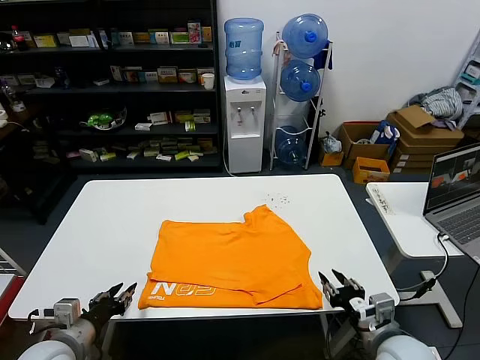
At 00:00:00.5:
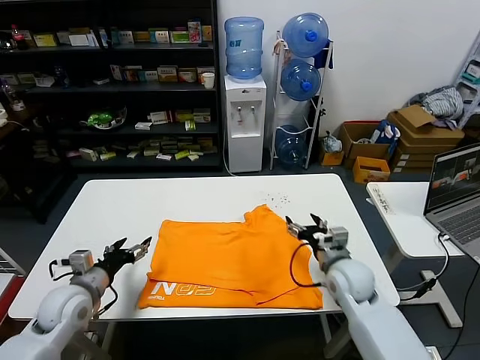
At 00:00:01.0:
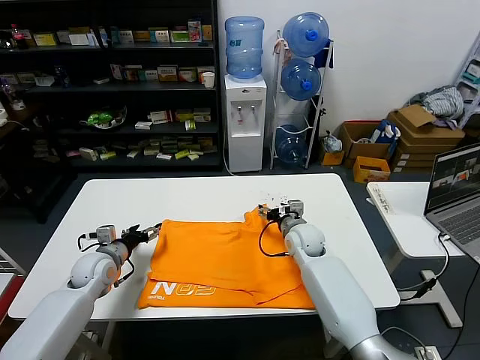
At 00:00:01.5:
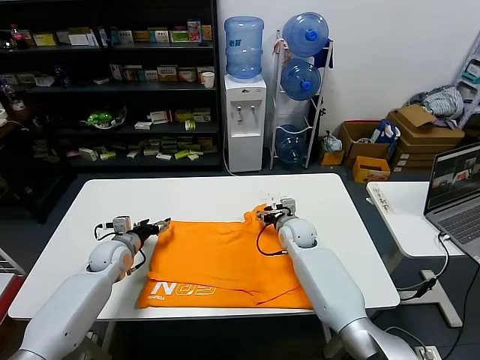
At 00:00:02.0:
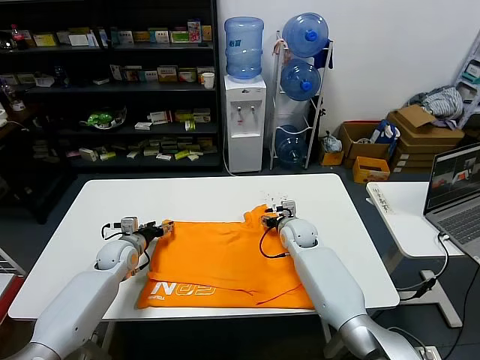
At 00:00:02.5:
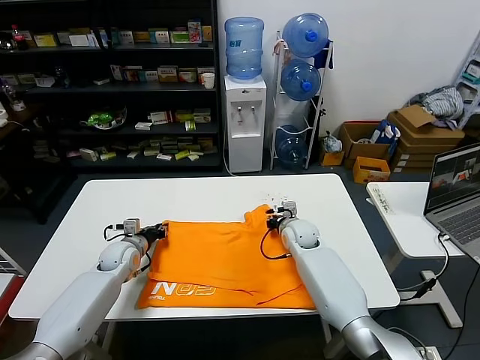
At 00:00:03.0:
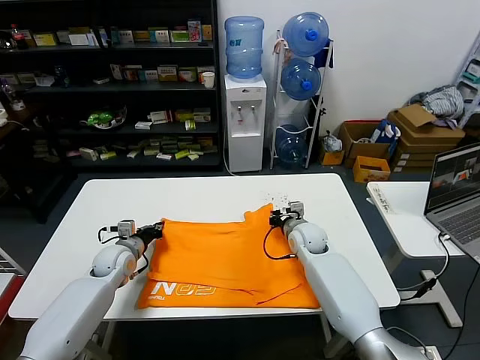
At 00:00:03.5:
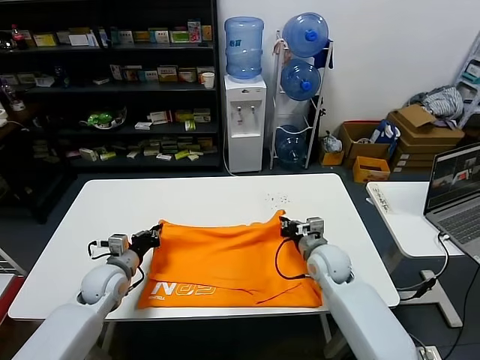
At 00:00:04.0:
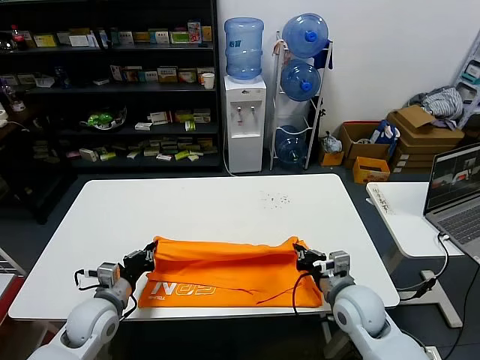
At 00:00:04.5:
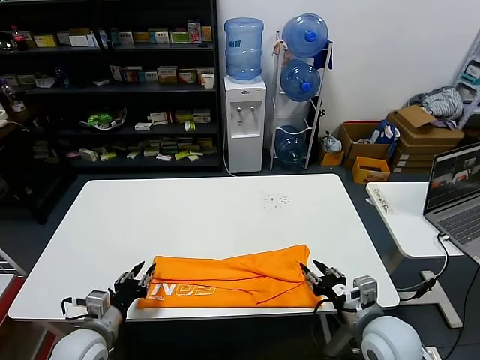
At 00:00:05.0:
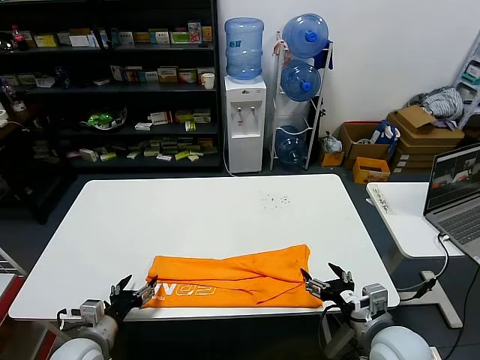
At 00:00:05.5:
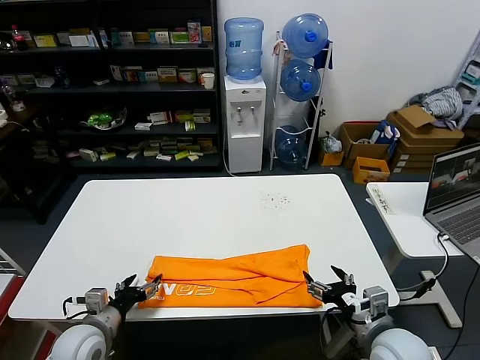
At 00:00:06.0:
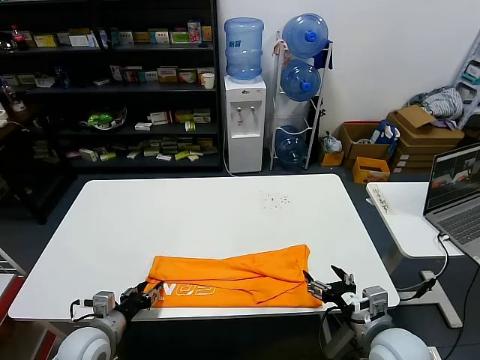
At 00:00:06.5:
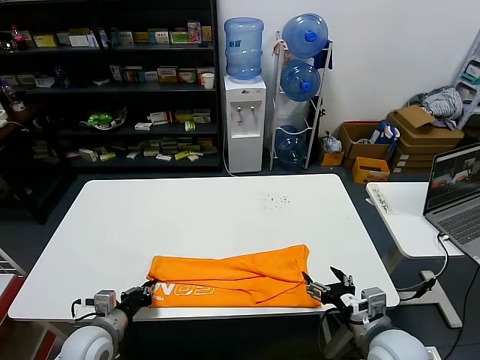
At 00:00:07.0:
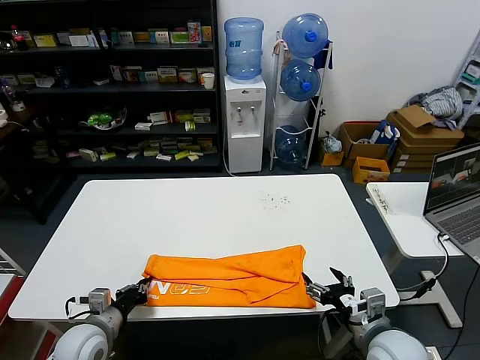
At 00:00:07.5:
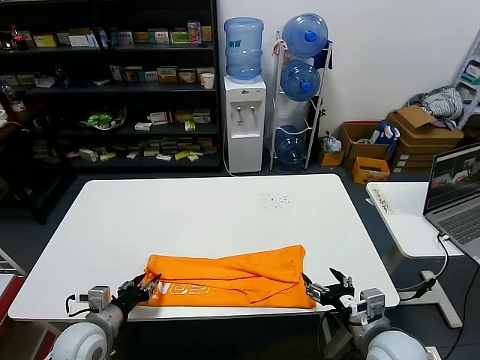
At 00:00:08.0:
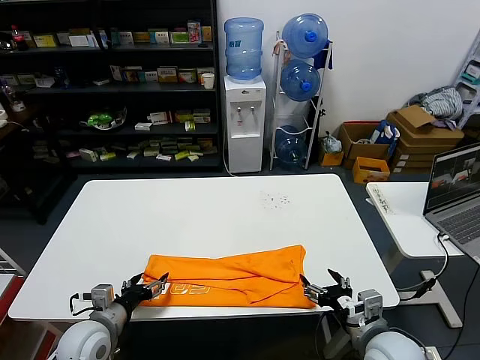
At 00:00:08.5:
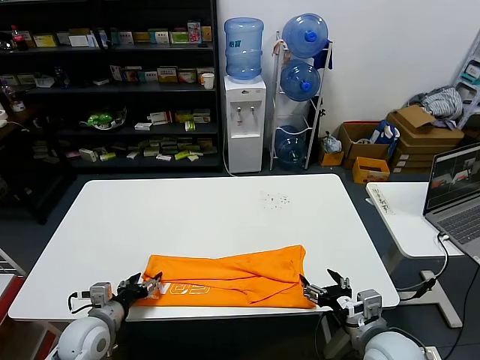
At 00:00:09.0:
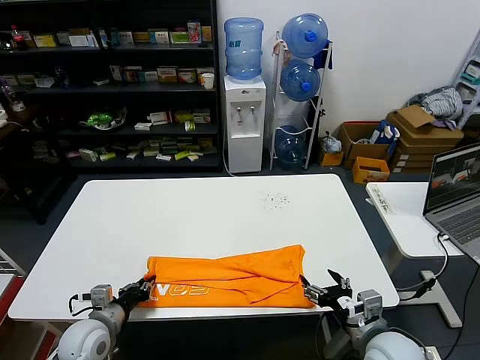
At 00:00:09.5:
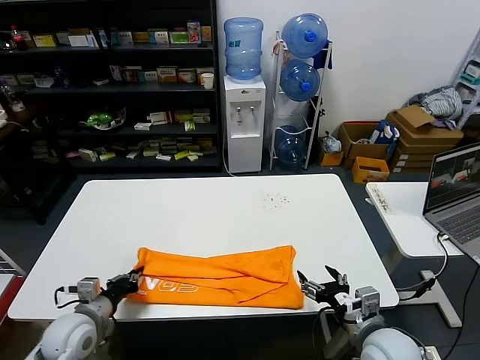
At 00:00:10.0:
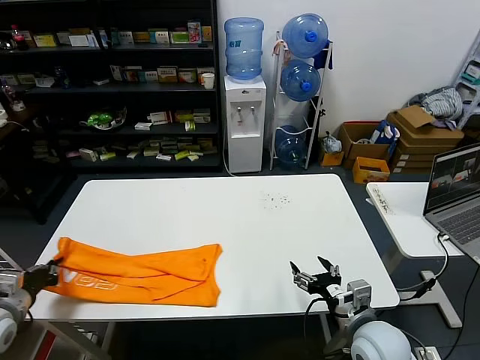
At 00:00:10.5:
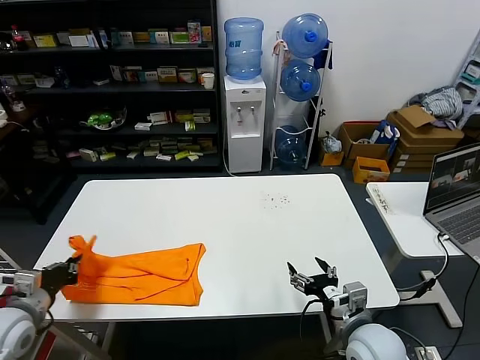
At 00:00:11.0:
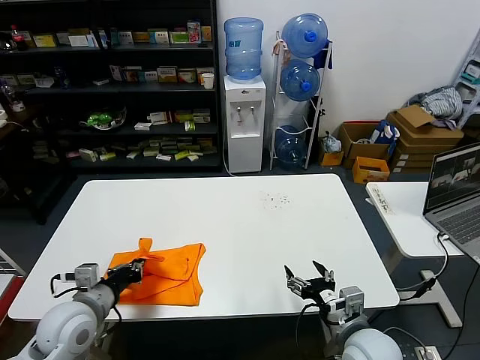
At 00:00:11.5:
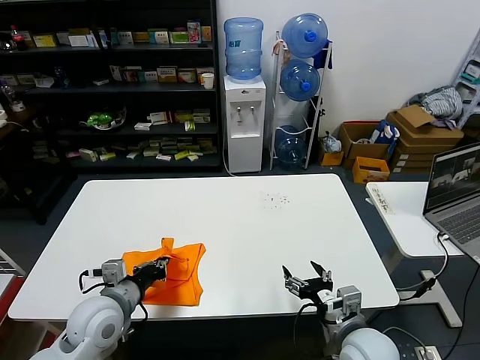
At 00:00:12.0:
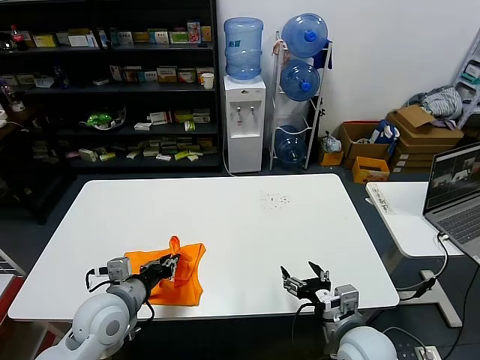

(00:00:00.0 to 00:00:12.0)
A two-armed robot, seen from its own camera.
Task of the whole recording: fold and organize the clothes.
Step, 00:00:00.0 - 00:00:02.5: use both grippers simultaneously to clamp the upper edge of the clothing fabric.
Step, 00:00:03.0 - 00:00:04.0: use both grippers to drag the upper edge of the fabric backward and fold it over the lower edge.
Step, 00:00:04.5 - 00:00:09.0: use the left gripper to clamp the left edge of the fabric.
00:00:00.0 - 00:00:02.0: The left gripper is displaced forward by some 25 cm, and opens up; the right gripper shifts some 35 cm forward and to the left.
00:00:02.0 - 00:00:04.0: Both grippers move backward, some 20 cm. The left gripper closes its fingers, while the right gripper closes.
00:00:04.0 - 00:00:06.0: The grippers both shift backward by about 5 cm. The left gripper opens up, while the right gripper opens up.
00:00:06.0 - 00:00:08.0: The left gripper opens.
00:00:08.0 - 00:00:10.0: The left gripper moves to the left, some 15 cm, and closes its fingers.
00:00:10.0 - 00:00:12.0: The left gripper heads to the right, covering roughly 20 cm.

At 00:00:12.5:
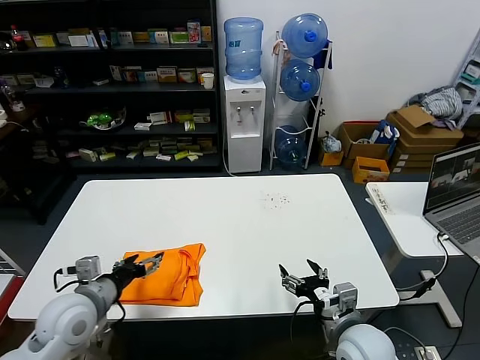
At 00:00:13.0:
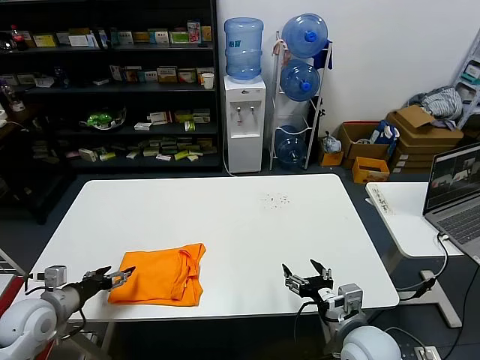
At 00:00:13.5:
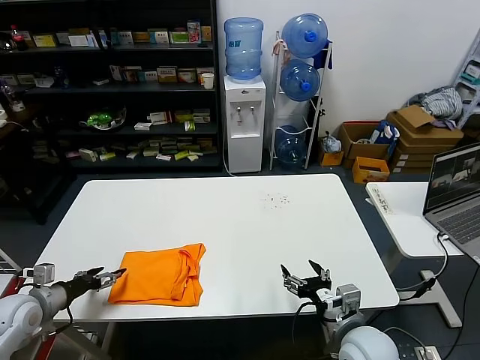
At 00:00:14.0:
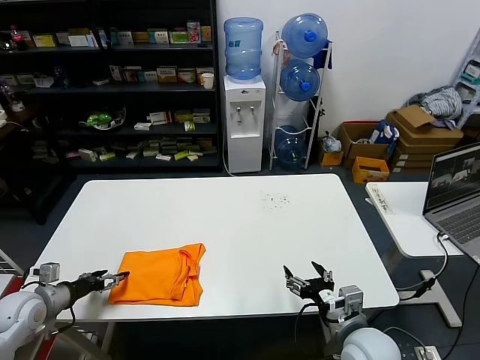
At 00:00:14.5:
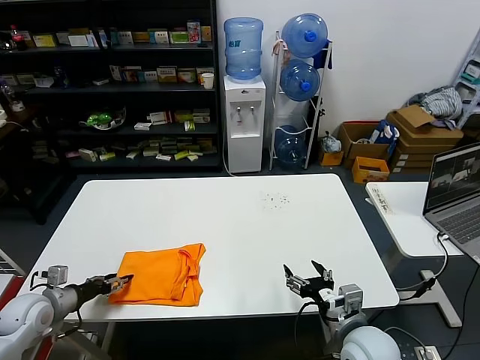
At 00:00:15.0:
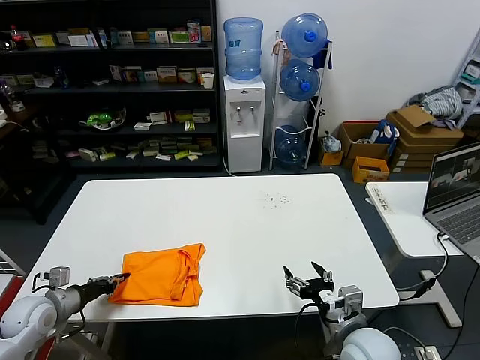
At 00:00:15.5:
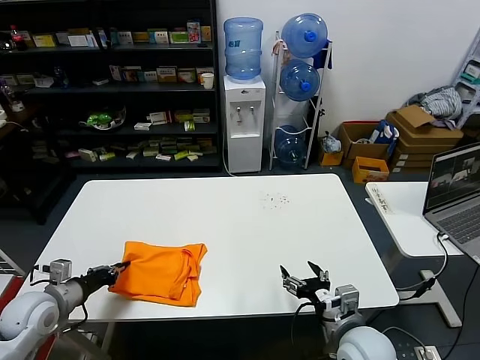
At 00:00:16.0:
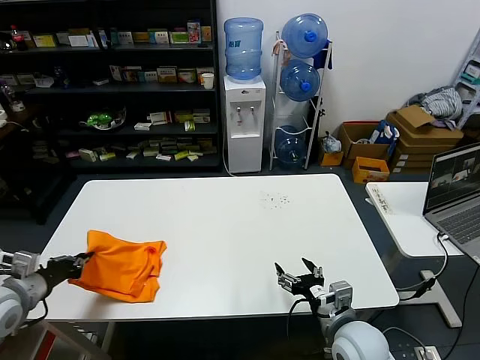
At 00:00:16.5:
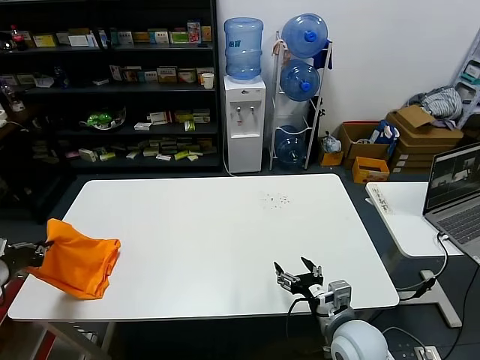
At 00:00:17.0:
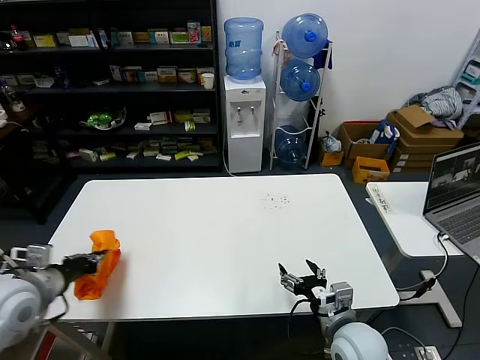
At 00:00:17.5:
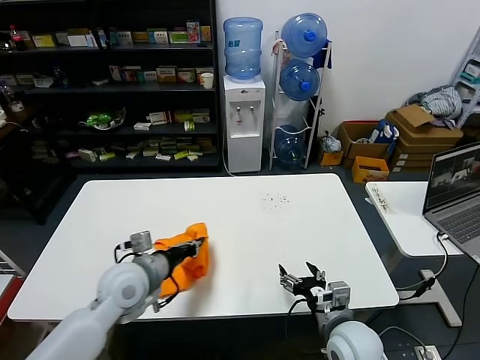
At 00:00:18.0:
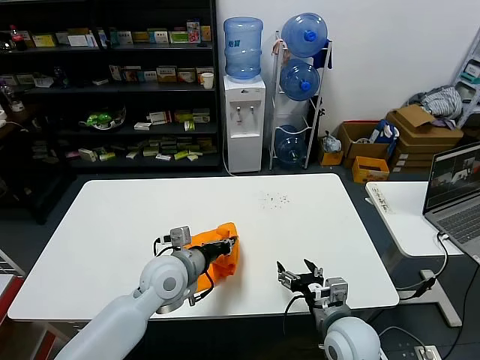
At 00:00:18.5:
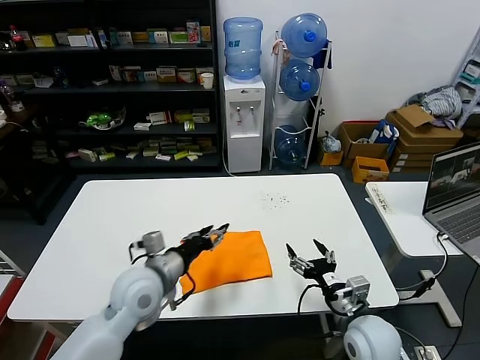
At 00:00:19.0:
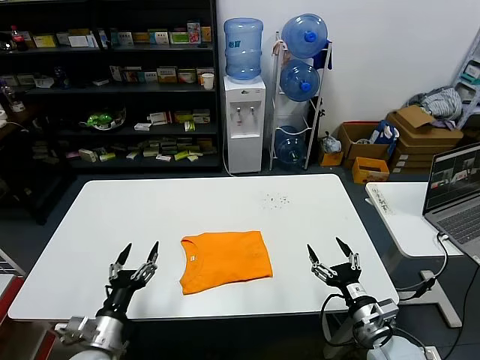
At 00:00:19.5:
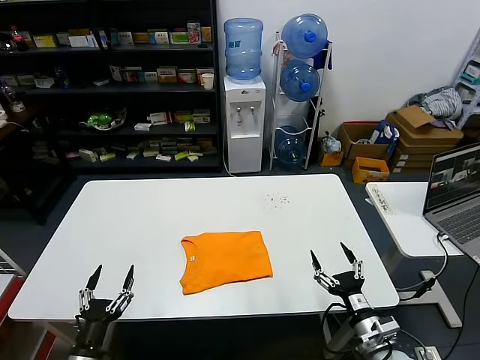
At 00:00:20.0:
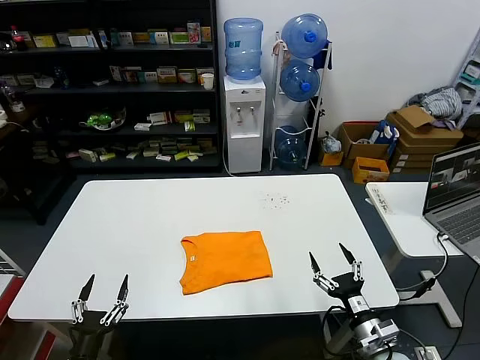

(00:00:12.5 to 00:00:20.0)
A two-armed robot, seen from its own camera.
Task of the whole recording: fold and organize the clothes.
Step, 00:00:12.5 - 00:00:18.0: Flip the folded clothes over with left gripper.
00:00:12.5 - 00:00:14.5: The left gripper heads to the left and downward, covering approximately 20 cm.
00:00:14.5 - 00:00:16.5: The left gripper travels upward by roughly 15 cm, and closes.
00:00:16.5 - 00:00:18.0: The left gripper heads to the right, covering approximately 35 cm.
00:00:18.0 - 00:00:20.0: The left gripper heads backward, to the left and downward, covering some 30 cm, and opens up. Meanwhile the right gripper moves to the right and backward, roughly 10 cm.

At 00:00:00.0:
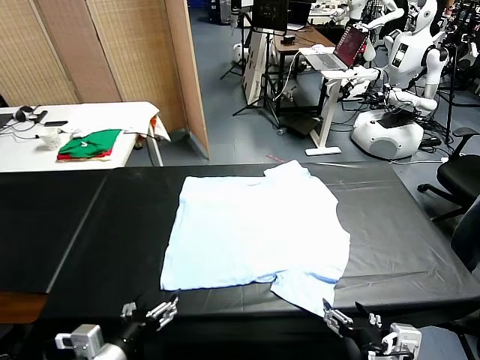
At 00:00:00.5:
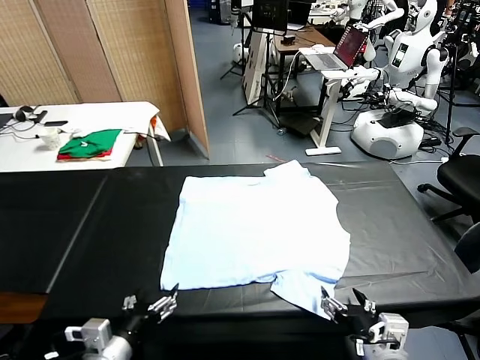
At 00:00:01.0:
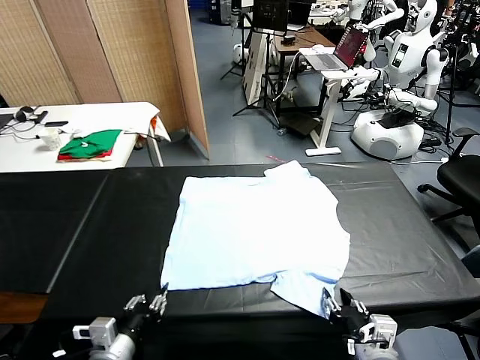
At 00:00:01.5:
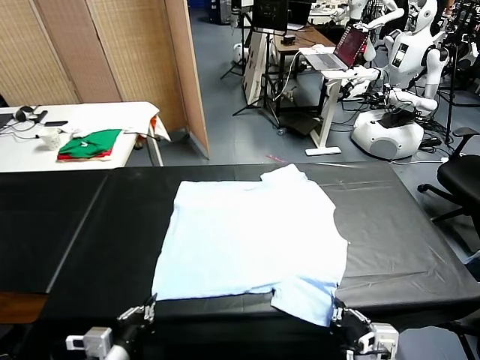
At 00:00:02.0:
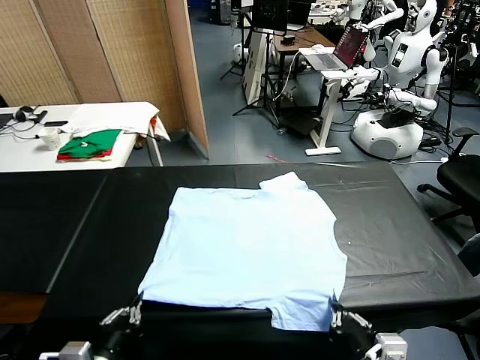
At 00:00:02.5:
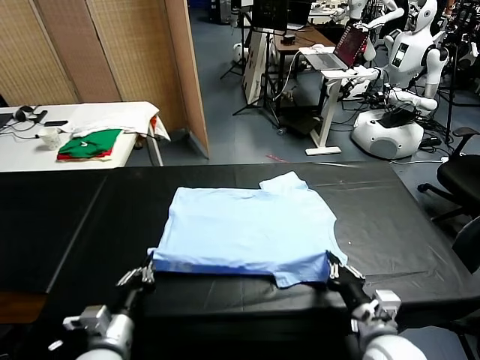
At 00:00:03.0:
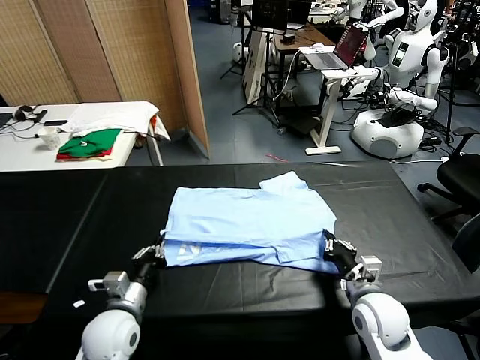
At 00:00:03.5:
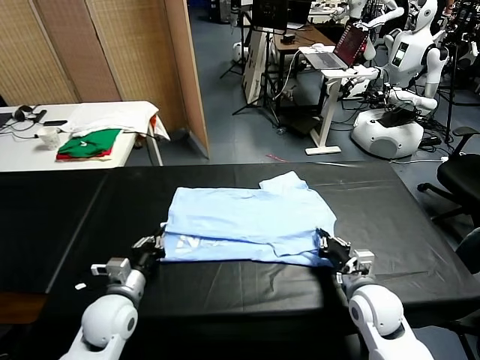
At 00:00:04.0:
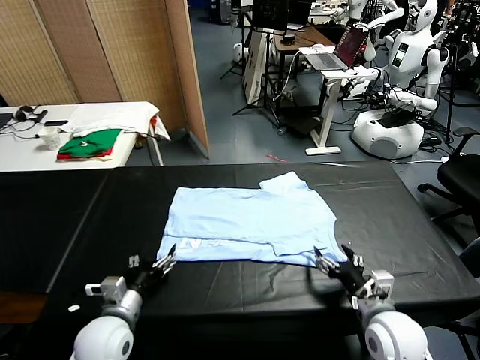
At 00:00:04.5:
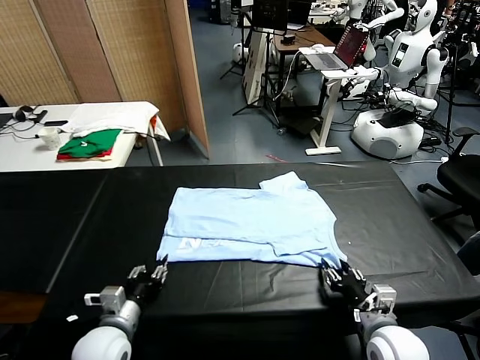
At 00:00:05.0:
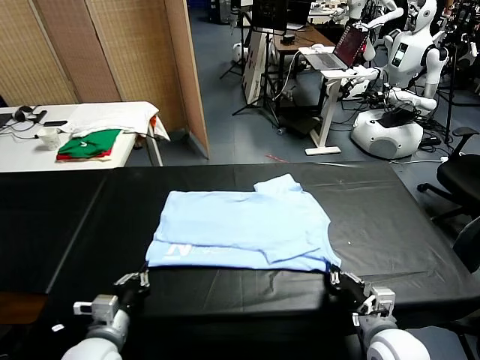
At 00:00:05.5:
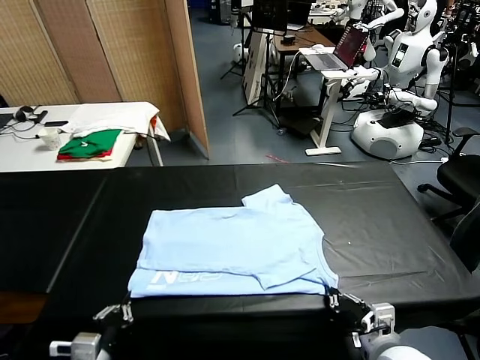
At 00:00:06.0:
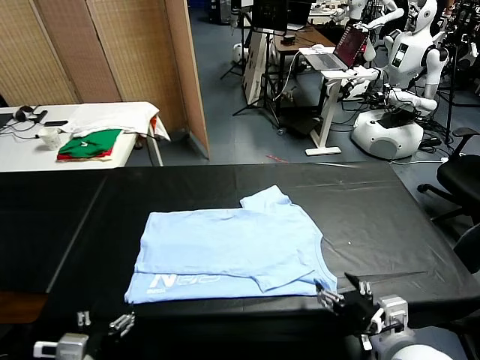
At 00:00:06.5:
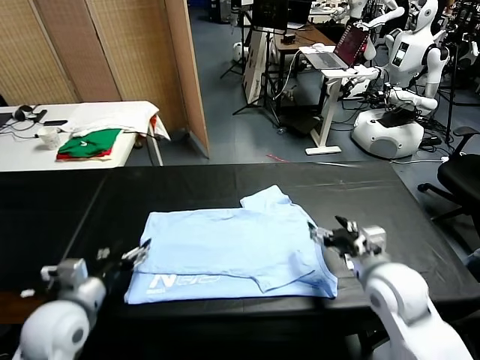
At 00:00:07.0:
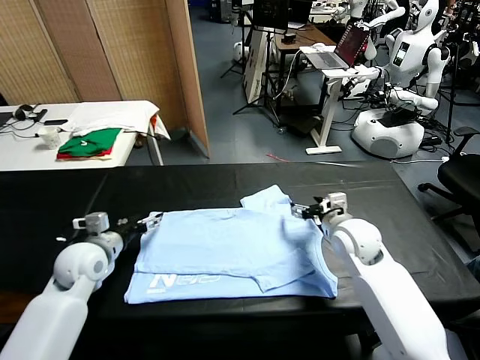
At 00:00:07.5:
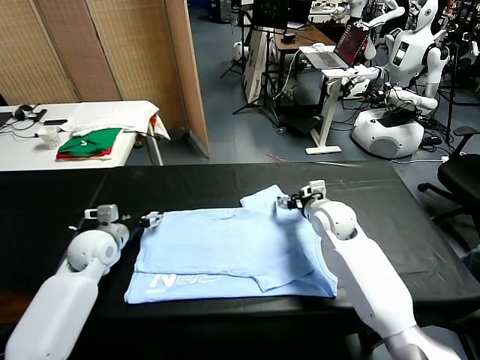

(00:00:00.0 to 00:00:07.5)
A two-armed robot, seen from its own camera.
Task of the whole recording: fold and organize the clothes.
Step, 00:00:00.0 - 00:00:01.5: use both grippers simultaneously to clamp the lower edge of the clothing fabric.
Step, 00:00:02.0 - 00:00:03.5: use both grippers to drag the lower edge of the fabric forward and fold it over the upper edge.
Step, 00:00:04.0 - 00:00:06.0: Drag the clothes downward with both gripper.
00:00:02.0 - 00:00:04.0: The right gripper heads forward and downward, covering approximately 10 cm, and opens its fingers. The left gripper heads forward and downward, covering approximately 15 cm, and opens its fingers.
00:00:04.0 - 00:00:05.5: The left gripper moves backward, approximately 10 cm, and closes its fingers; the right gripper moves backward and upward, about 10 cm, and closes and opens again.
00:00:05.5 - 00:00:07.5: Both grippers travel together forward, approximately 30 cm. The left gripper opens. Meanwhile the right gripper opens up.
